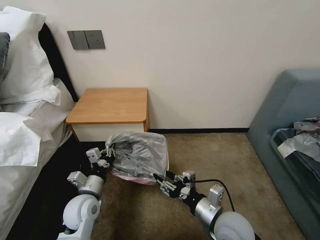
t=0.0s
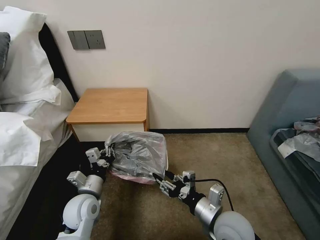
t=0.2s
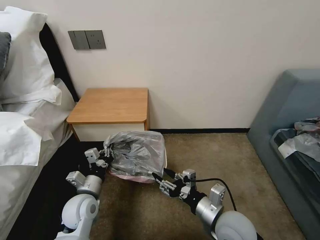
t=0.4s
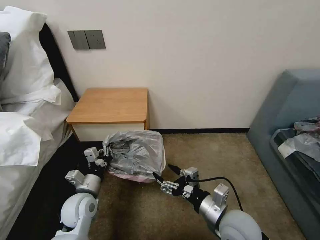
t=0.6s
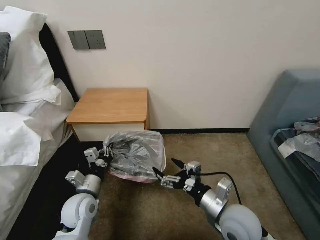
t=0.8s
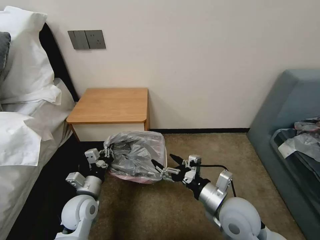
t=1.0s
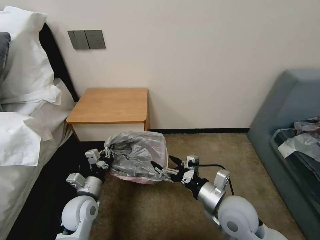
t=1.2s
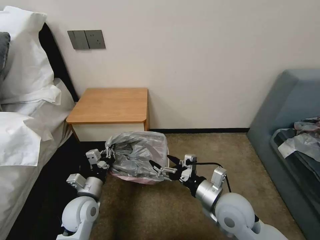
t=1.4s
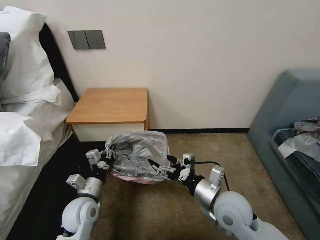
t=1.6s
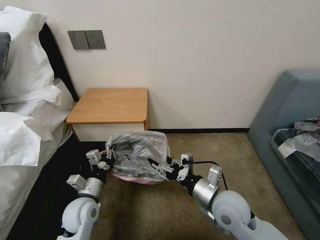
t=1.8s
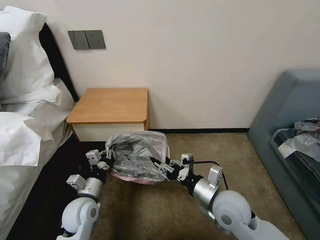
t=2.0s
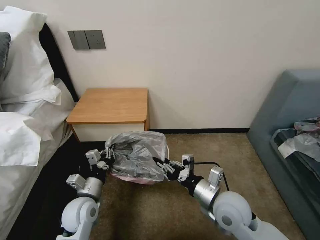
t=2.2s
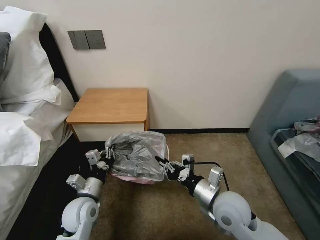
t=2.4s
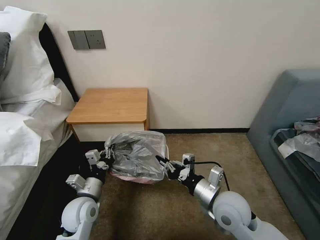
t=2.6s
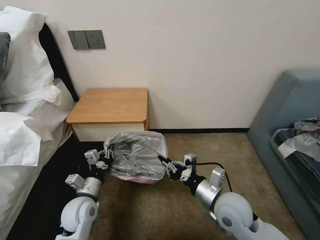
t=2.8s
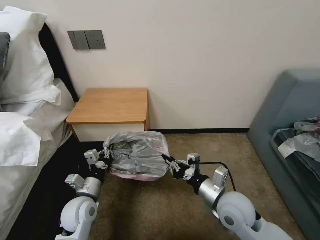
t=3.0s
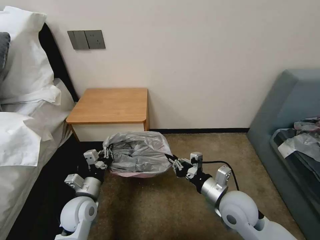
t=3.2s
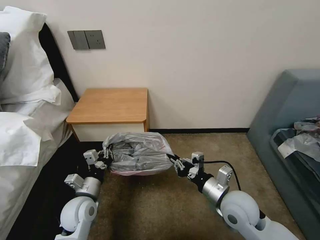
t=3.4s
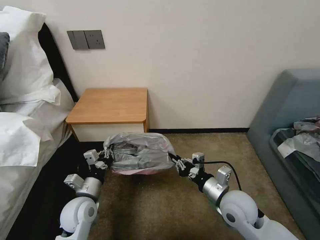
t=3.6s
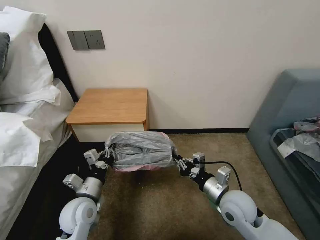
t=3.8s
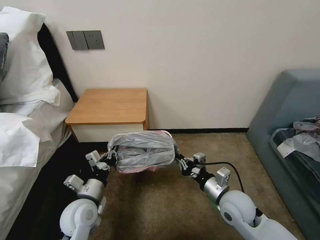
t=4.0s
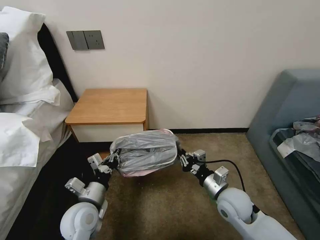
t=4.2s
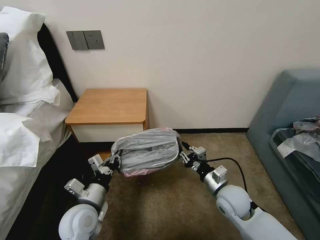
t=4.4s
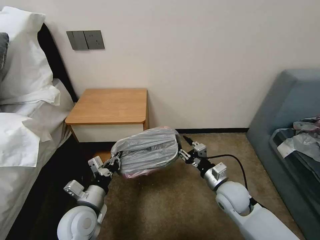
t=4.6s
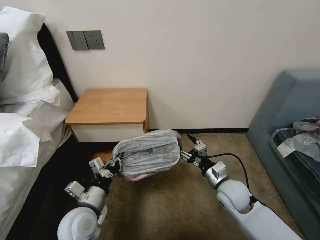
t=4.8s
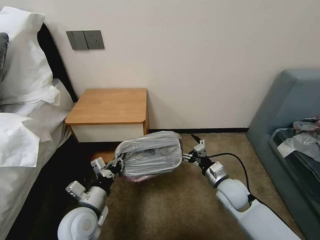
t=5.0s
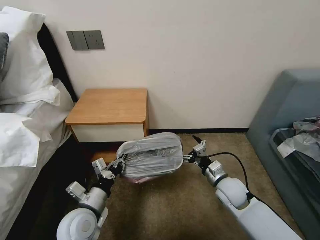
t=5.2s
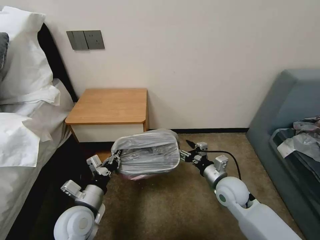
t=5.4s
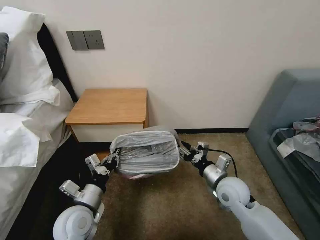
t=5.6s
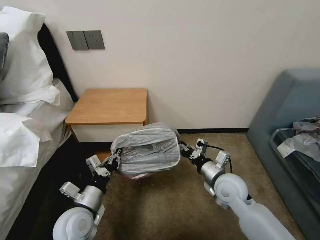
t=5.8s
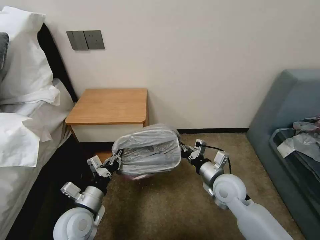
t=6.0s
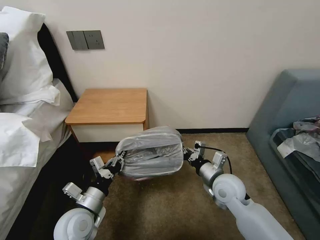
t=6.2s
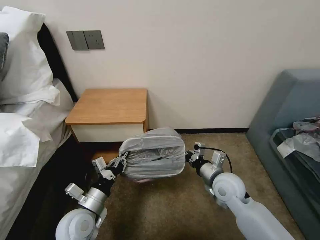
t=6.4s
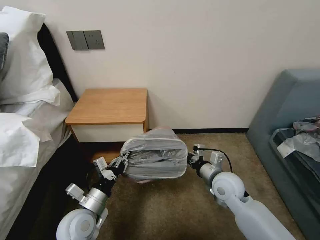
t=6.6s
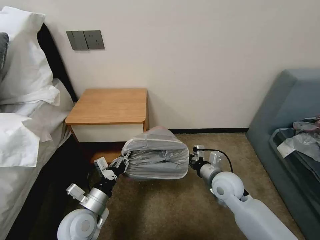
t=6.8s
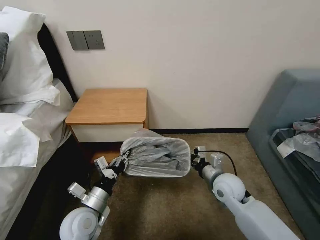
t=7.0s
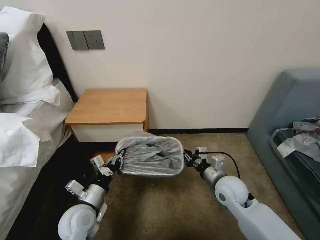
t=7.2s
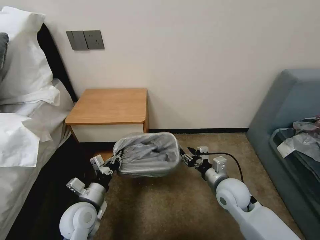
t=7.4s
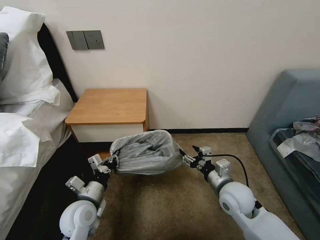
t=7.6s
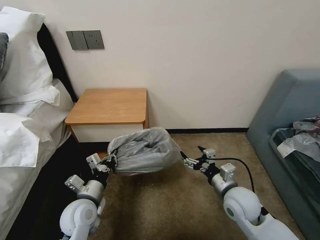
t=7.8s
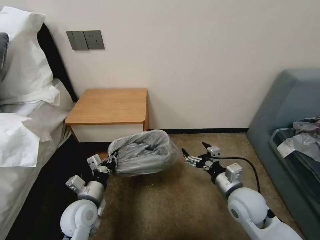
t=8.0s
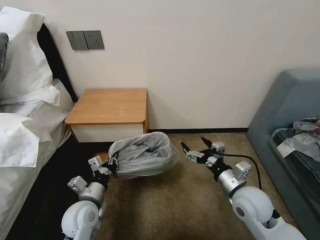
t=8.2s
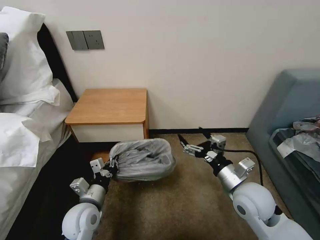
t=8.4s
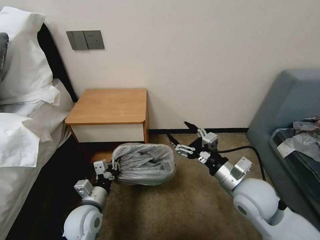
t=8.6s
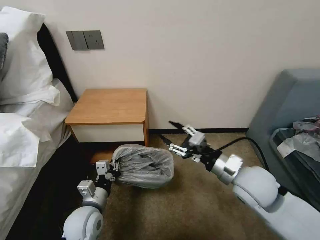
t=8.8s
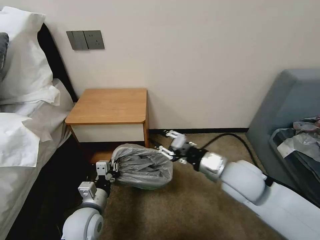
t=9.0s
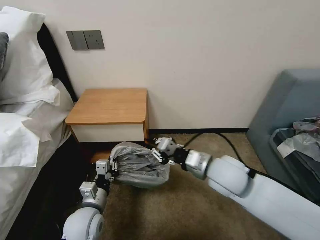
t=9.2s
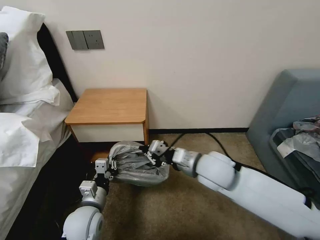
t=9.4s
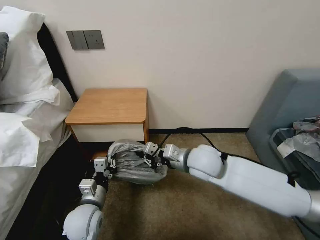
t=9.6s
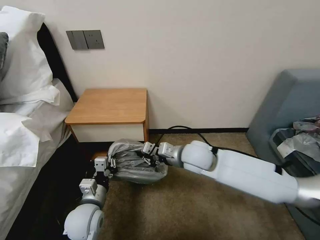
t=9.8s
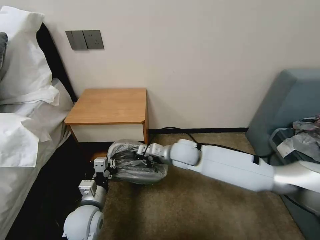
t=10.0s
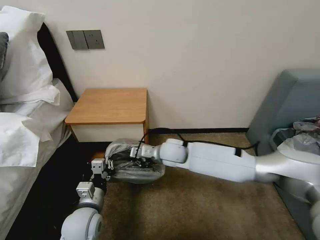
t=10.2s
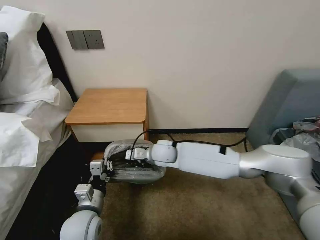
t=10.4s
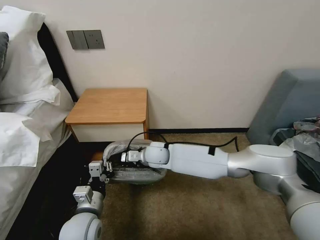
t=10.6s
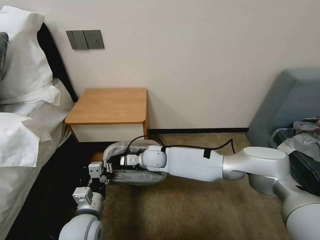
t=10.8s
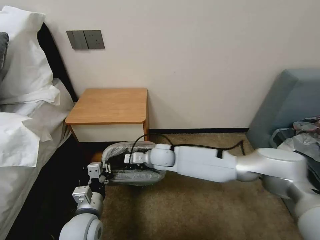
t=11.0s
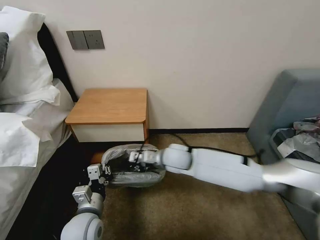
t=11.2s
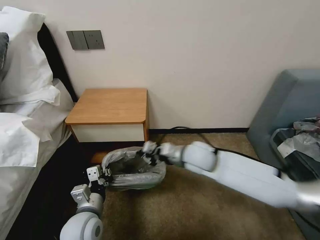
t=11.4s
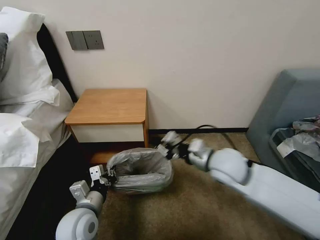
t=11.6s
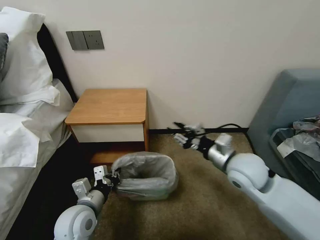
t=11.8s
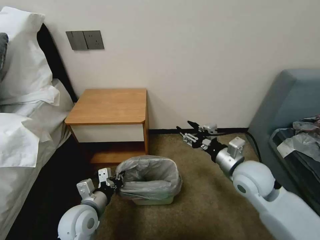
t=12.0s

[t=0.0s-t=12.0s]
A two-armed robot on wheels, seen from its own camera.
Task of the whole recording: Pick up the garbage bag from the table and place it over the trash can.
t=0.0s to t=1.6s: The right gripper shifts by some 5 cm, and opens its fingers.
t=1.6s to t=3.0s: The right gripper closes its fingers.
t=3.0s to t=4.4s: The left gripper shifts by roughly 5 cm. The right gripper travels downward by about 5 cm.
t=4.4s to t=6.0s: The right gripper opens, then closes once more.
t=6.0s to t=7.6s: The right gripper opens.
t=7.6s to t=9.0s: The right gripper travels upward by roughly 10 cm, and closes up.
t=9.0s to t=10.4s: The right gripper travels to the left, forward and downward by approximately 25 cm.
t=10.4s to t=12.0s: The right gripper heads to the right and backward, covering about 30 cm, and opens up.

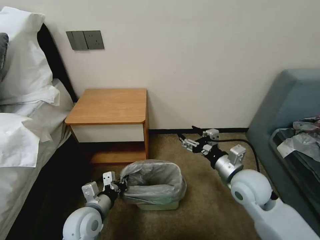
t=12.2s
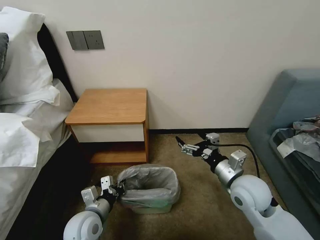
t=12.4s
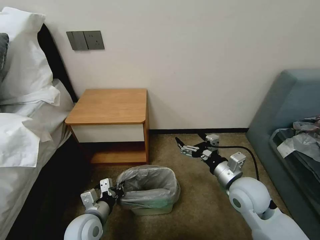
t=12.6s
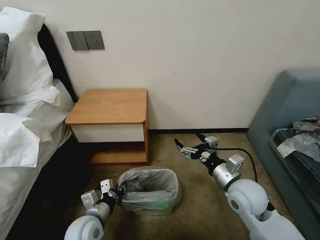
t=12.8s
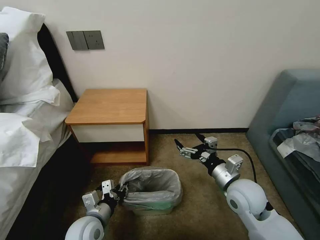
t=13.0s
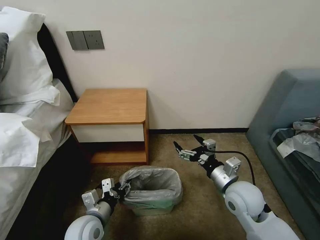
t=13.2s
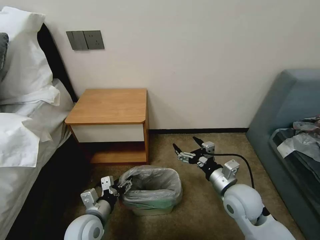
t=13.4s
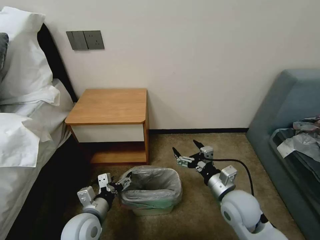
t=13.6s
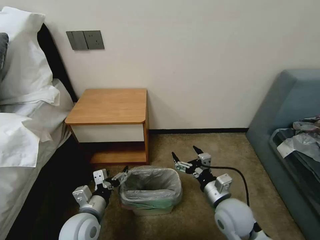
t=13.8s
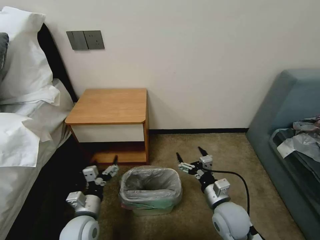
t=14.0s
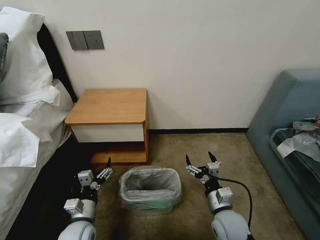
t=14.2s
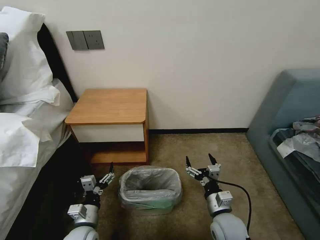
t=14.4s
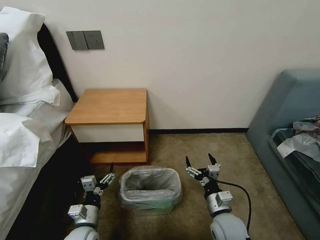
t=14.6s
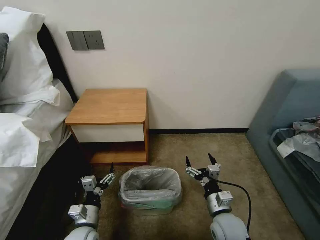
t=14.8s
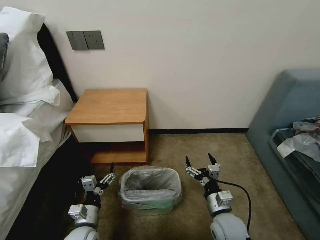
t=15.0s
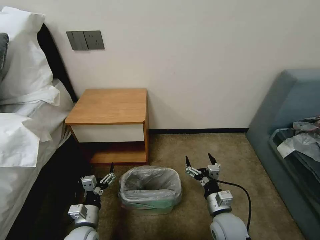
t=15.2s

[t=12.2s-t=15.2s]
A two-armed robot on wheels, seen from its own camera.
Task of the whole recording: Pick up the garbage bag from the table and place it over the trash can.
t=12.2s to t=13.8s: The right gripper goes about 10 cm downward and backward, while the left gripper opens up.
t=13.8s to t=15.2s: Both grippers travel together downward, some 10 cm.

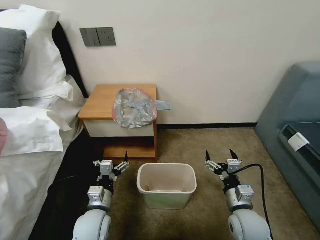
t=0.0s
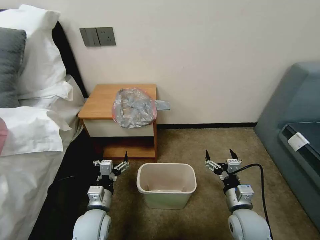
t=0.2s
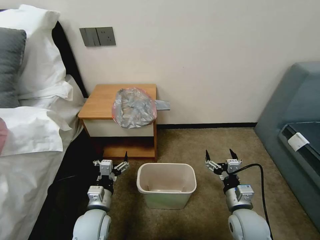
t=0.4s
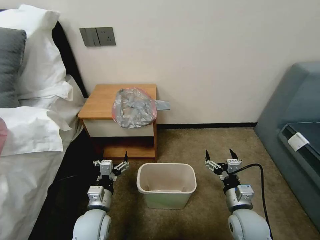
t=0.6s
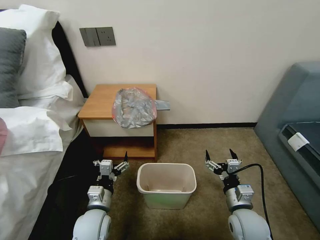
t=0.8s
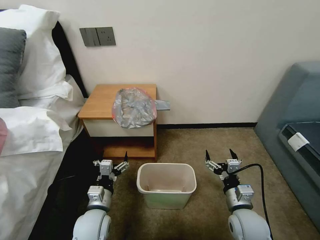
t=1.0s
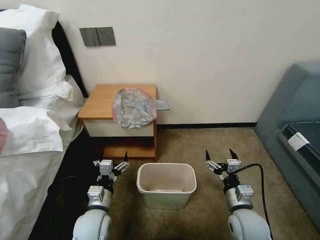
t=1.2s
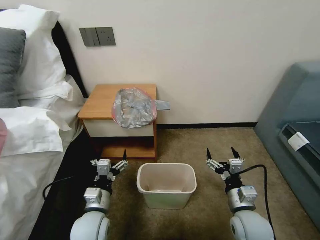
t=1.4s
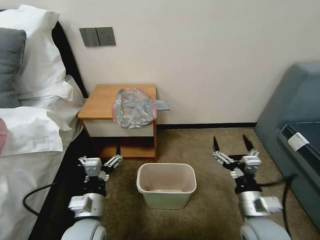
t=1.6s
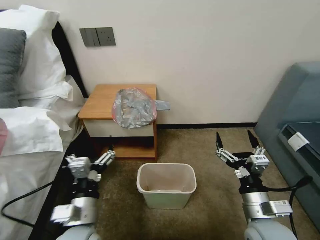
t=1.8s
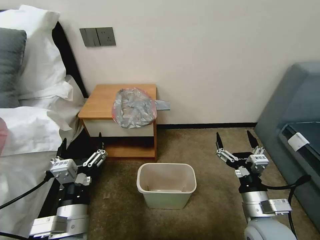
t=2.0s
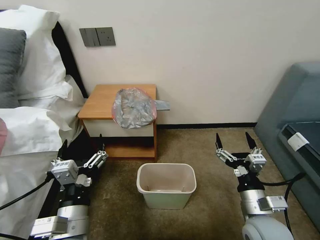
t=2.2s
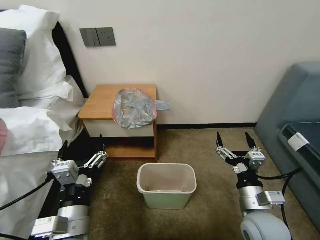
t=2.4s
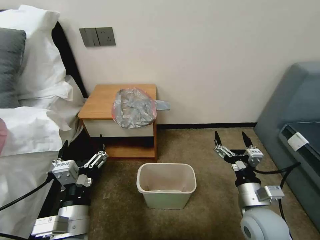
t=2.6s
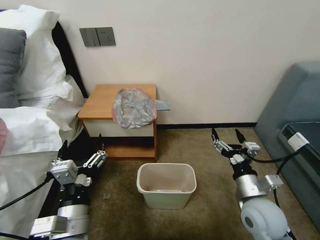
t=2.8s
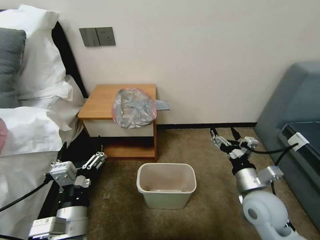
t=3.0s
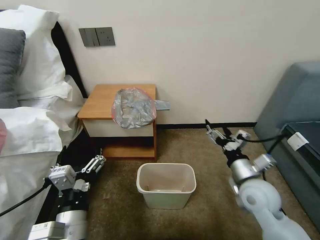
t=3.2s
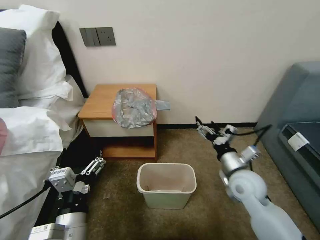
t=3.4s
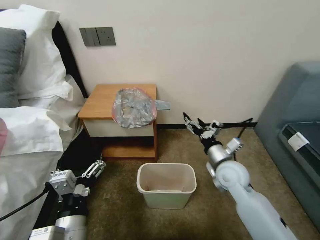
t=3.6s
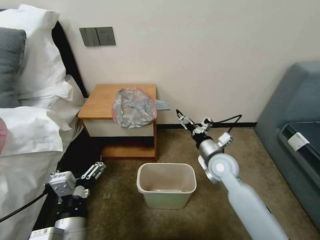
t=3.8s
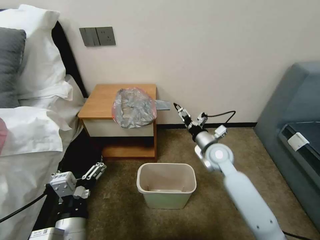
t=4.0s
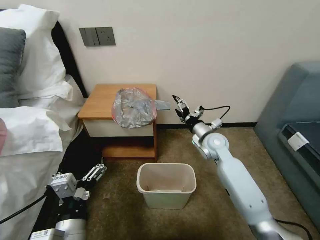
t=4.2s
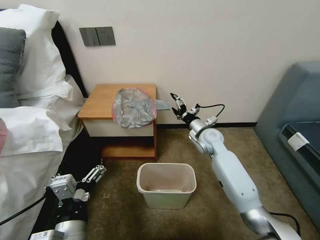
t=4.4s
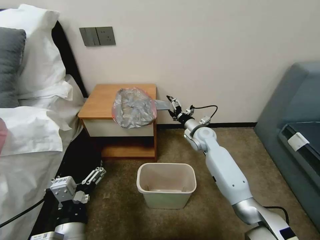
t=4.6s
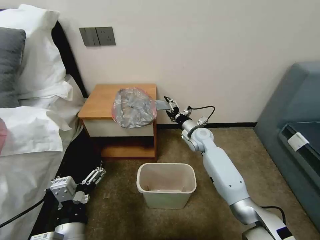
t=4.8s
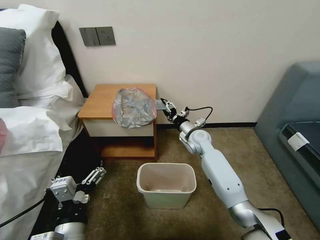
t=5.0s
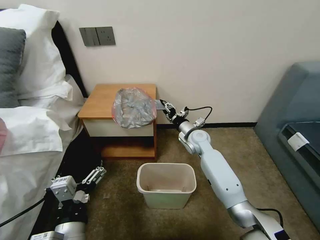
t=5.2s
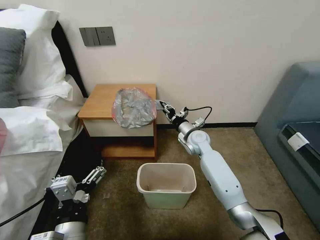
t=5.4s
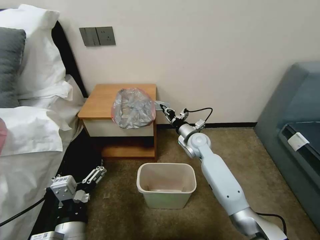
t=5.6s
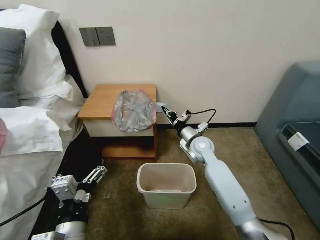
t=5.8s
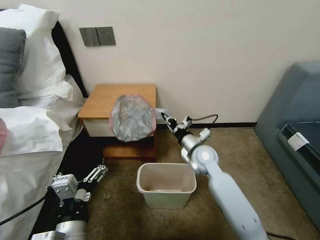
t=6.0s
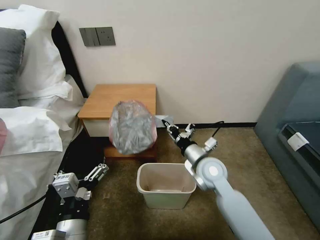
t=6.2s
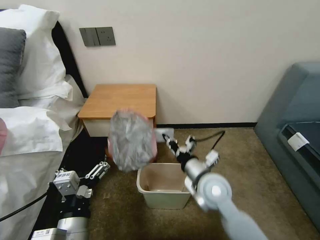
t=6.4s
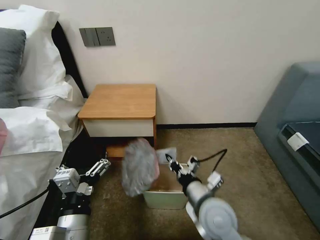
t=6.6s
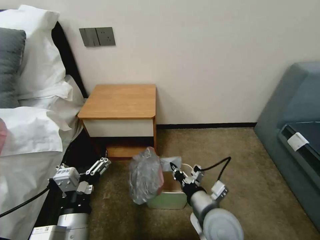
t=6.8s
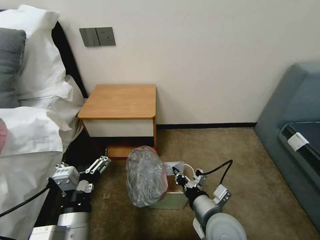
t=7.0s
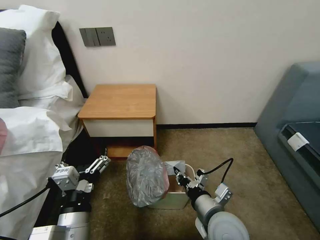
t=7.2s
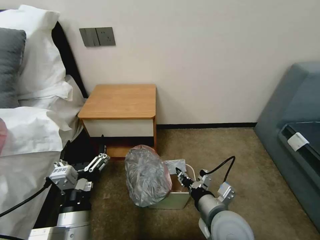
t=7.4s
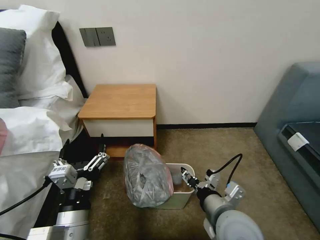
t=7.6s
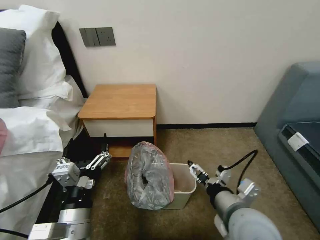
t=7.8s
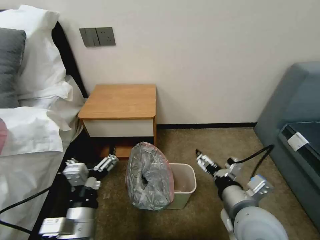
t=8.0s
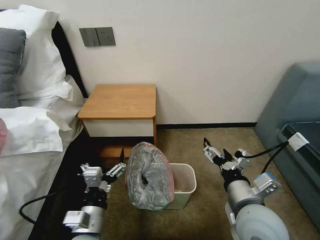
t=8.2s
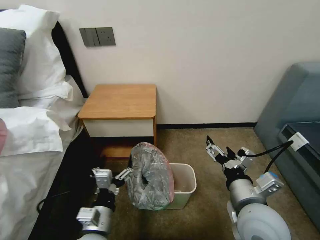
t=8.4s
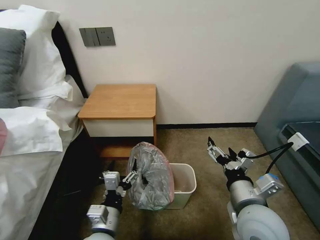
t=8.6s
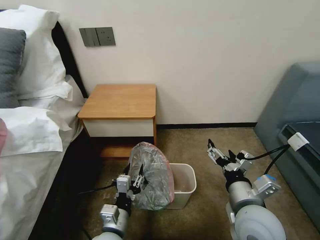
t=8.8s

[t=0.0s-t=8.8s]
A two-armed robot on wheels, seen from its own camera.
Task of the whole recording: Pick up the garbage bag from the table and place it over the trash can.
t=1.4s to t=3.0s: The left gripper heads upward and backward, covering roughly 15 cm. Meanwhile the right gripper travels upward by approximately 5 cm.
t=3.0s to t=4.4s: The right gripper goes roughly 25 cm forward.
t=4.4s to t=5.8s: The right gripper closes up.
t=5.8s to t=7.4s: The right gripper goes about 25 cm backward, and opens up.
t=7.4s to t=8.8s: The right gripper shifts by approximately 5 cm, and opens its fingers; the left gripper heads downward, covering some 10 cm, and closes.
